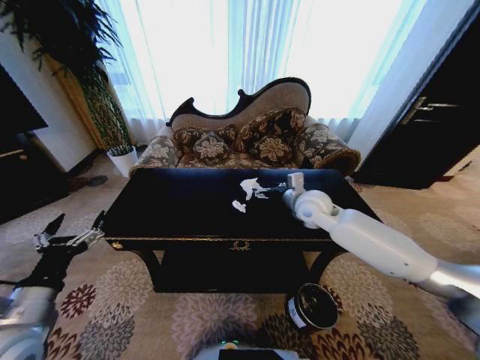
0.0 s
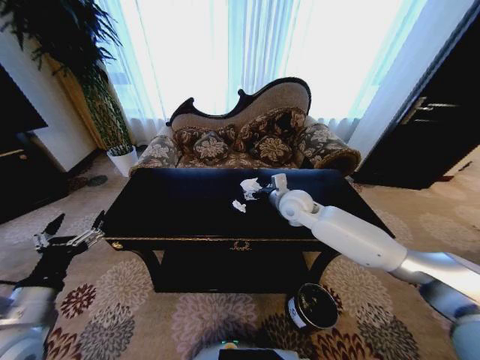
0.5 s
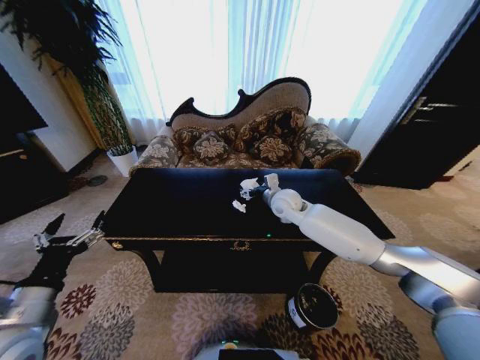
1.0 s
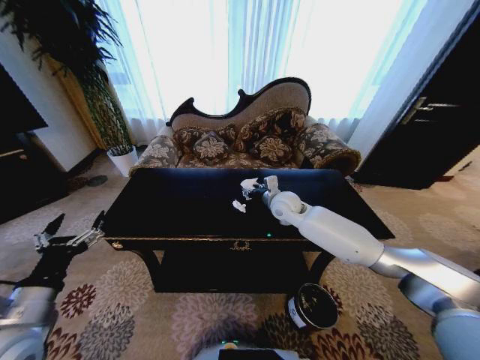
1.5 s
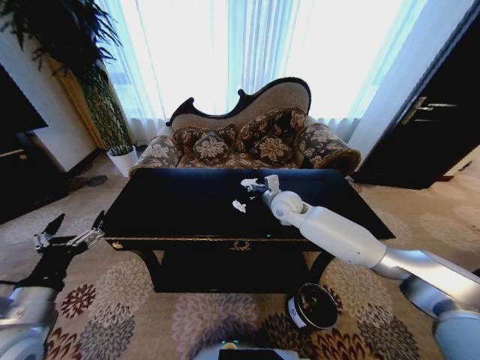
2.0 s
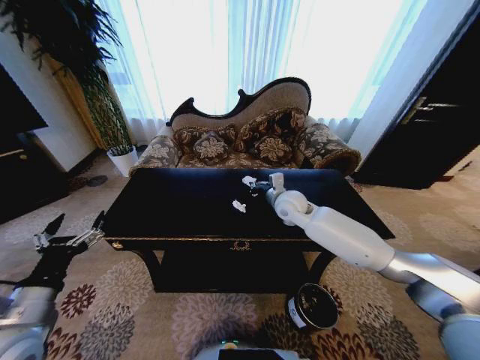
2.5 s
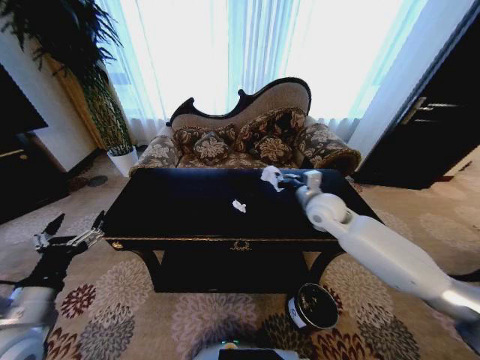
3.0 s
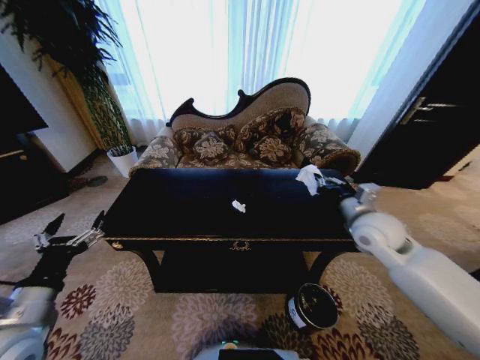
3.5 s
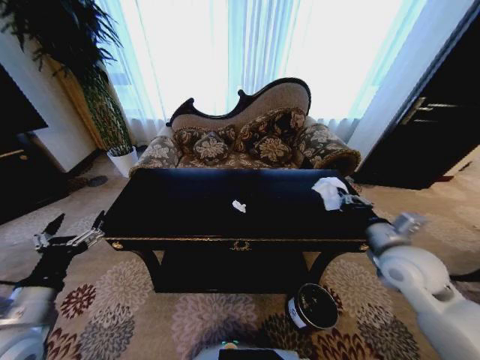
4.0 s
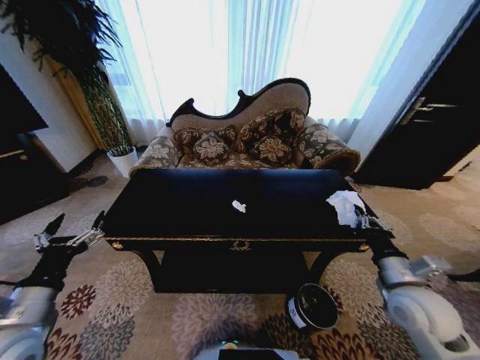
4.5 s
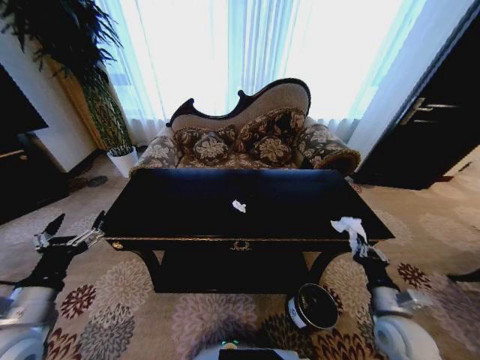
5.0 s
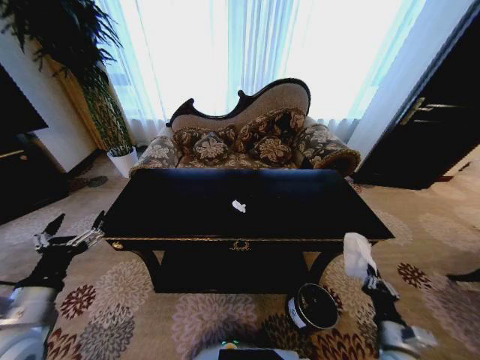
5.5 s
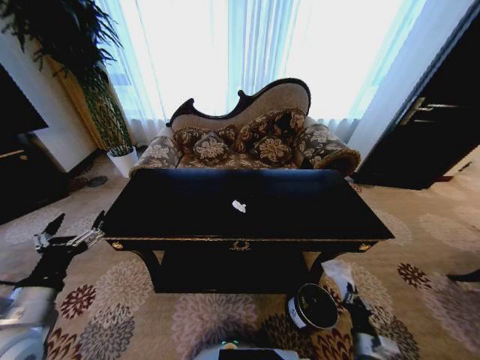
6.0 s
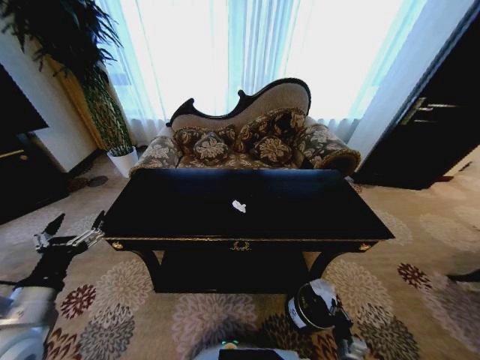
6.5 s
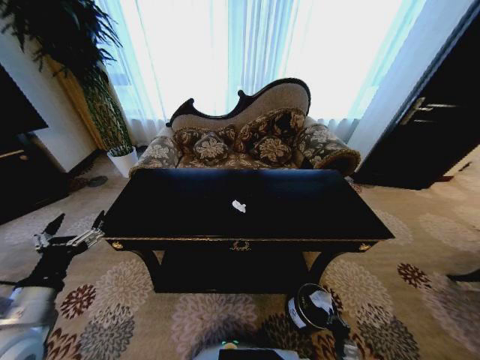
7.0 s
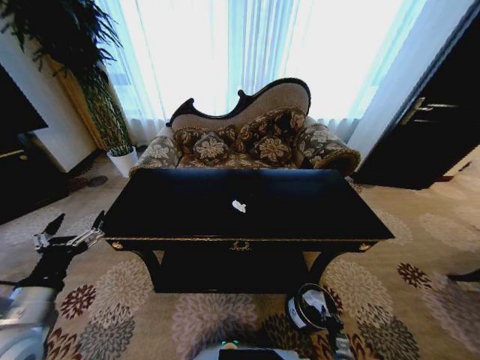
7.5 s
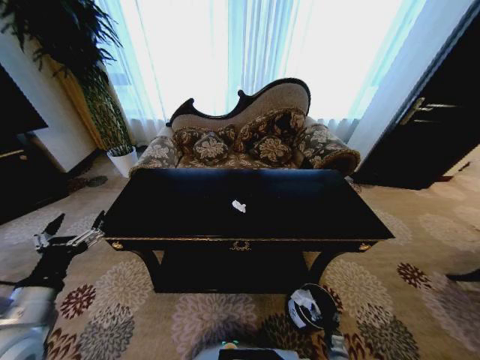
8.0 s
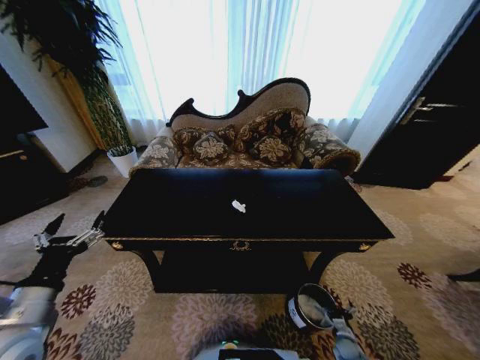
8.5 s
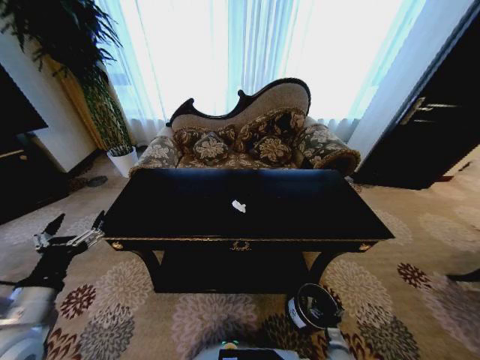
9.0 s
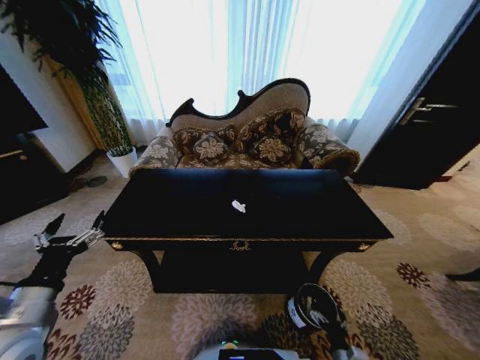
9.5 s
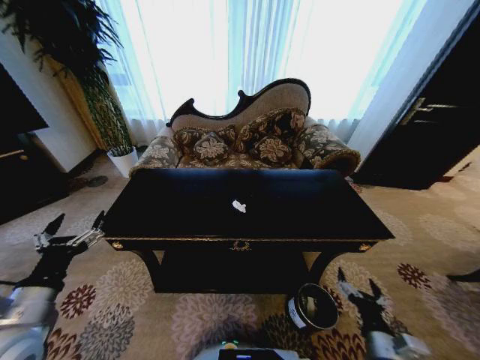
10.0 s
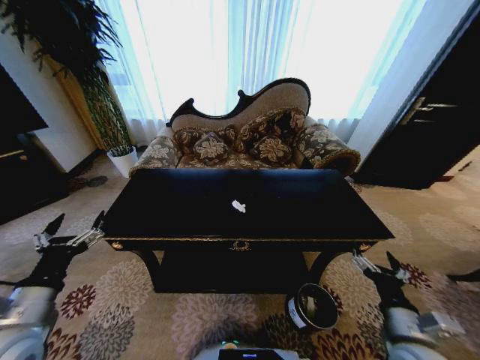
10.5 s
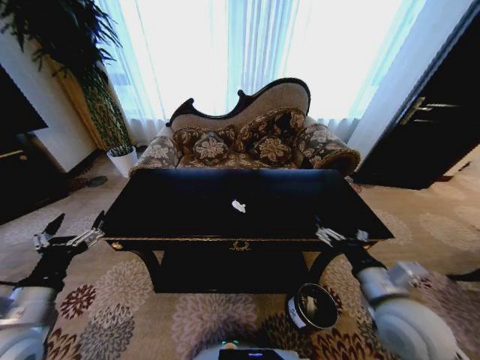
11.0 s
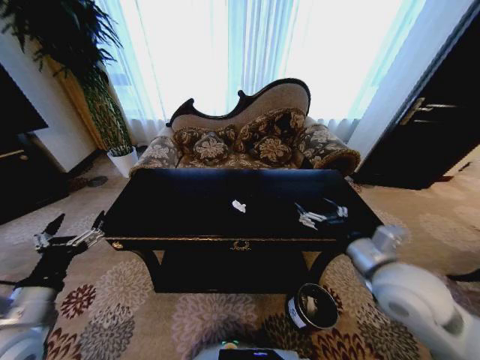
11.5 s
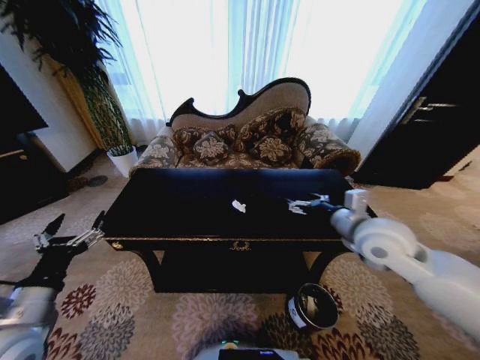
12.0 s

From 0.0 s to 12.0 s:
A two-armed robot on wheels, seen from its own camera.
Task of the whole recording: Move to the front of the table and place the trash on the table into the trash bin.
From 0.0 s to 2.0 s: The right gripper heads to the left, covering roughly 5 cm, and closes.
From 2.0 s to 4.0 s: The right gripper heads backward and to the right, covering roughly 30 cm.
From 4.0 s to 6.0 s: The right gripper moves downward and backward, some 35 cm.
From 6.0 s to 8.0 s: The right gripper moves downward, some 20 cm, and opens its fingers.
From 8.0 s to 10.0 s: The right gripper moves upward, about 30 cm.
From 10.0 s to 12.0 s: The right gripper heads upward and forward, covering about 35 cm.

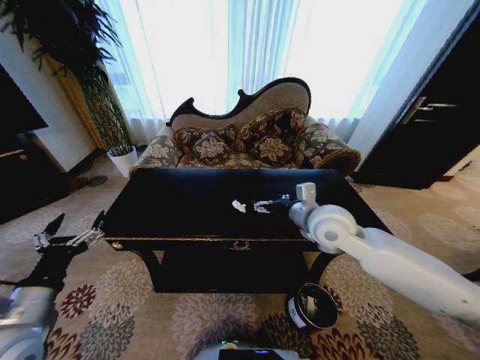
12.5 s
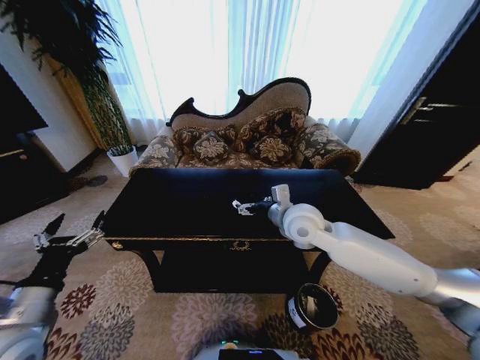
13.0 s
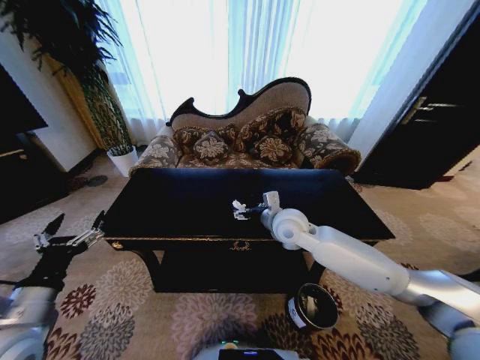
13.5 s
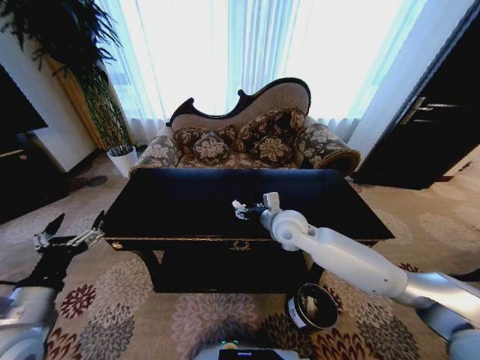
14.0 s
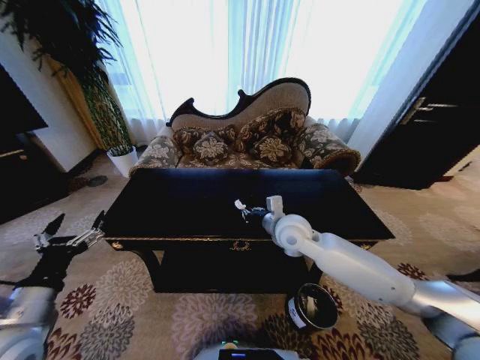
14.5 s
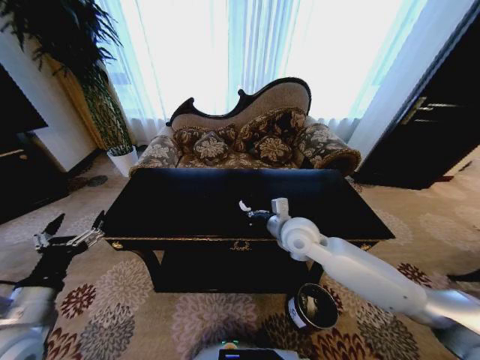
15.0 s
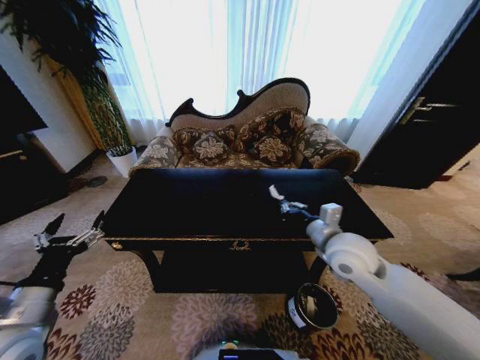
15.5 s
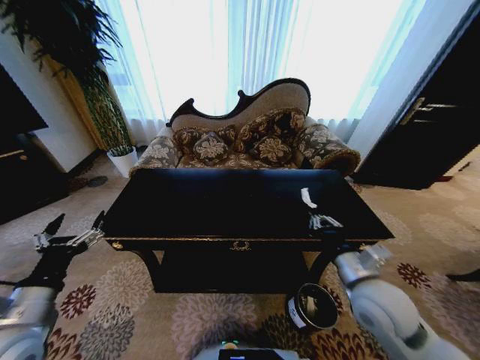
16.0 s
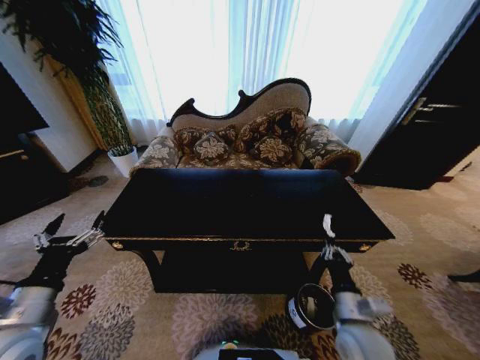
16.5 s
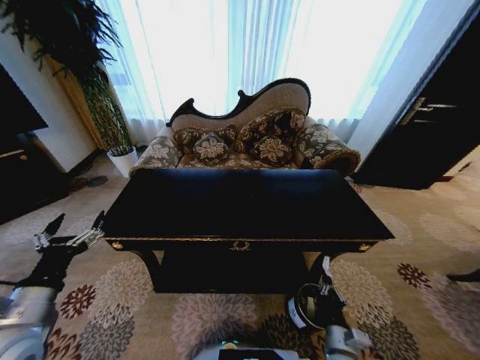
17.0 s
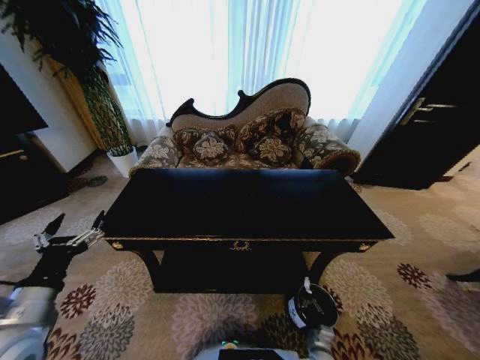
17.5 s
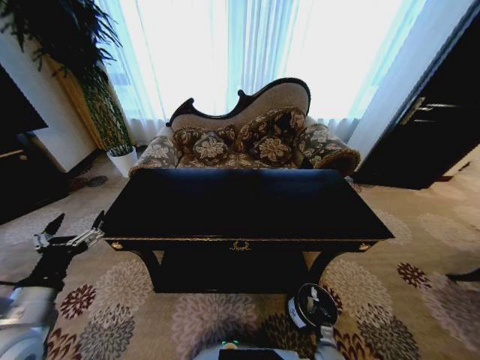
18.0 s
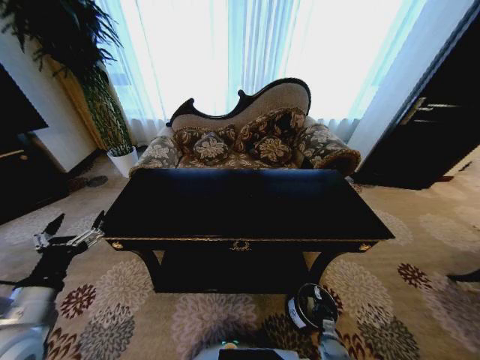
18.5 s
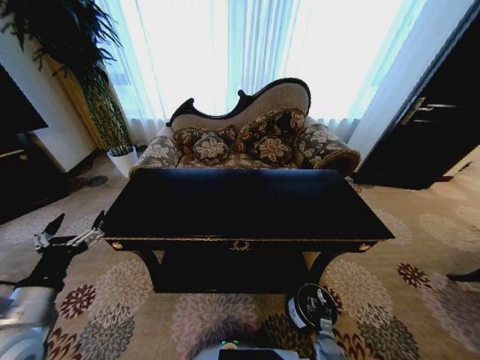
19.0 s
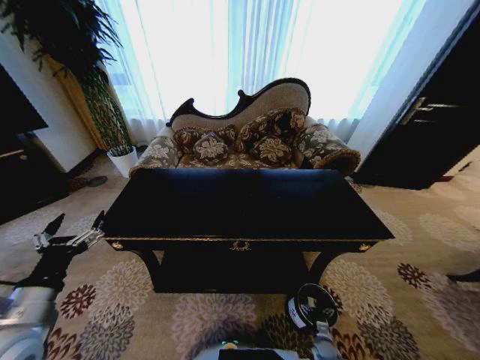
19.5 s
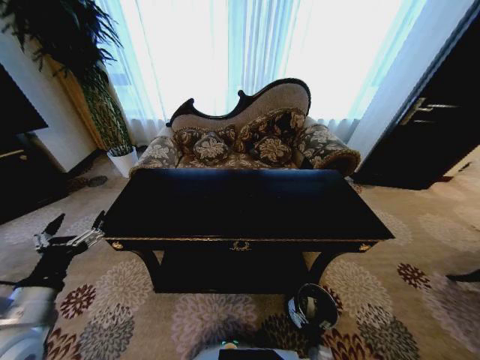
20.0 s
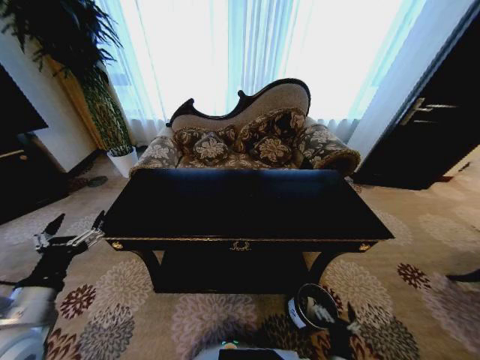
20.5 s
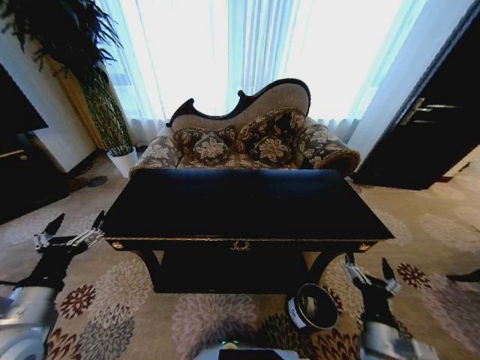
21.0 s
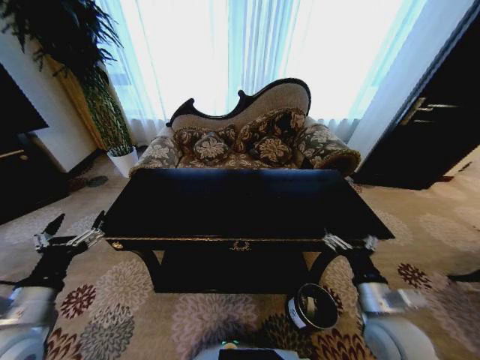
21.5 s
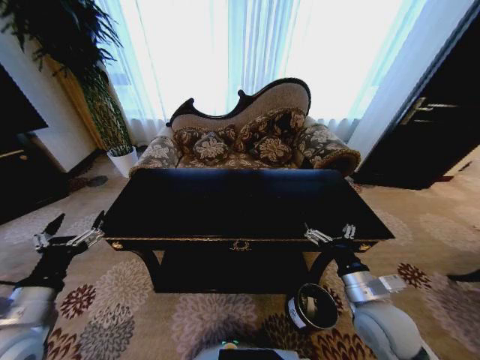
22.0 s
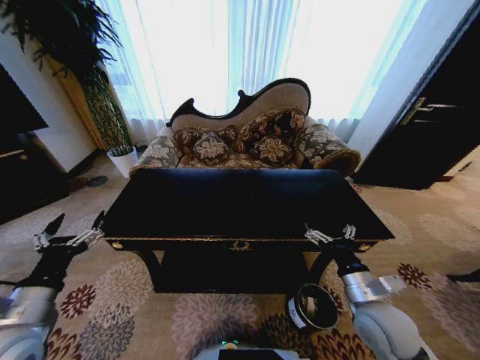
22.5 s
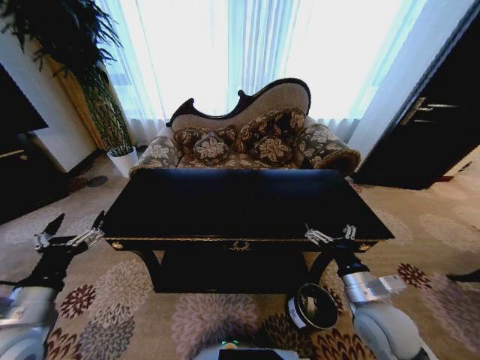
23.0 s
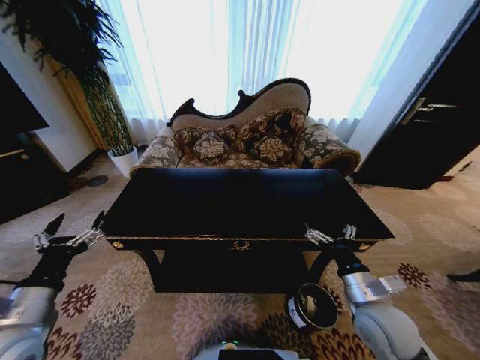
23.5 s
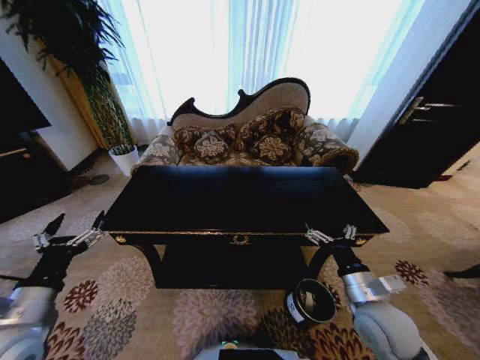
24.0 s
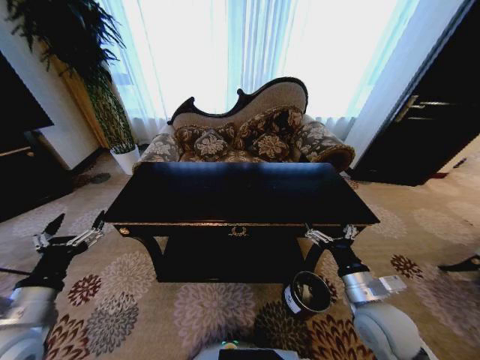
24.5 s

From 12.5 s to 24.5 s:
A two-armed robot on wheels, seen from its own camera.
Task of the whole recording: Move to the front of the table and place the trash on the table into the trash bin.
From 12.5 s to 14.5 s: The right gripper shifts approximately 10 cm downward and to the left, and closes.
From 14.5 s to 16.5 s: The right gripper shifts approximately 30 cm backward, downward and to the right.
From 16.5 s to 18.5 s: The right gripper is displaced downward by approximately 35 cm.
From 18.5 s to 20.5 s: The right gripper is displaced upward, to the left and backward by about 25 cm, and opens.
From 20.5 s to 22.5 s: The right gripper goes approximately 25 cm upward and forward.
From 22.5 s to 24.5 s: The two grippers keep their place.
